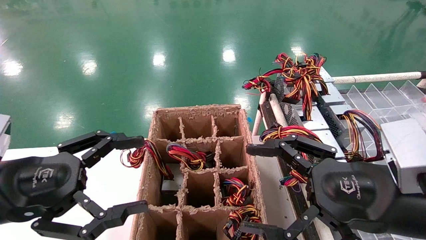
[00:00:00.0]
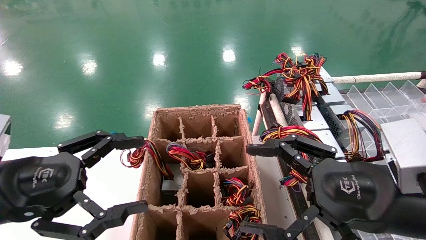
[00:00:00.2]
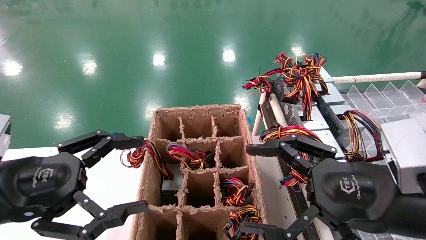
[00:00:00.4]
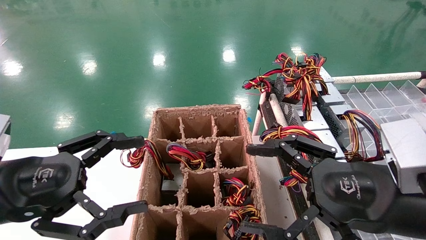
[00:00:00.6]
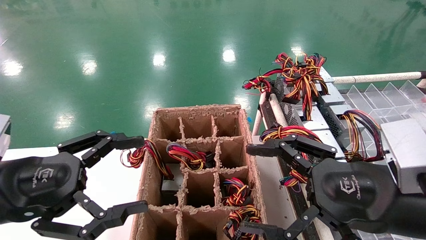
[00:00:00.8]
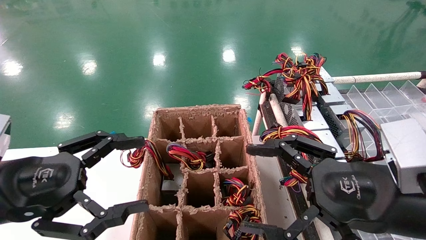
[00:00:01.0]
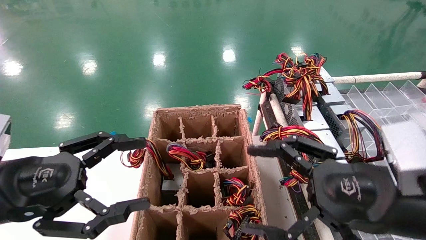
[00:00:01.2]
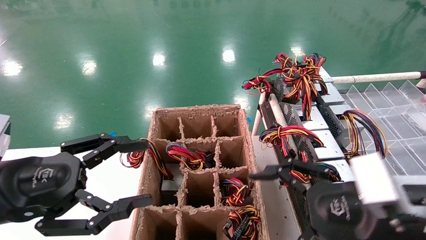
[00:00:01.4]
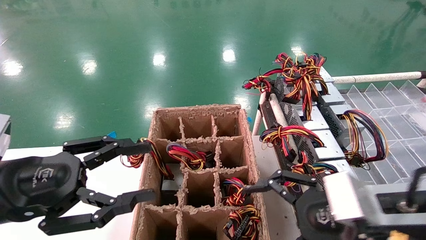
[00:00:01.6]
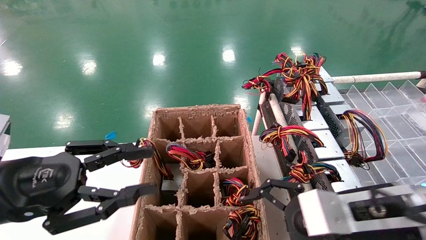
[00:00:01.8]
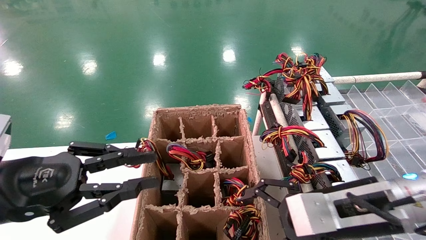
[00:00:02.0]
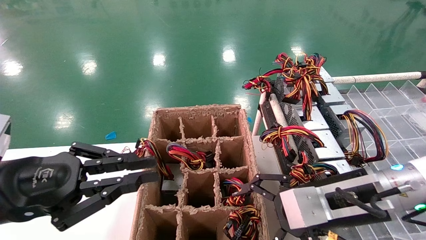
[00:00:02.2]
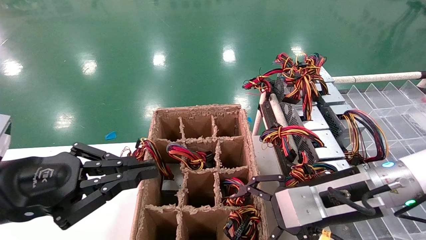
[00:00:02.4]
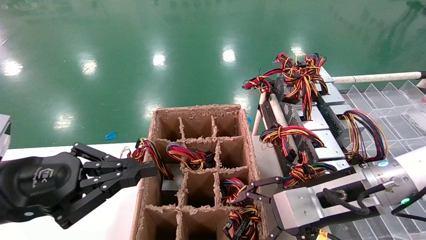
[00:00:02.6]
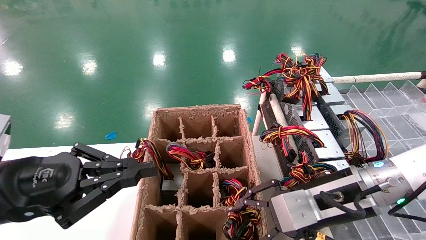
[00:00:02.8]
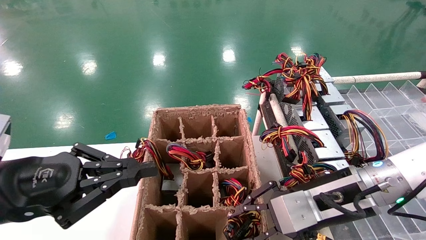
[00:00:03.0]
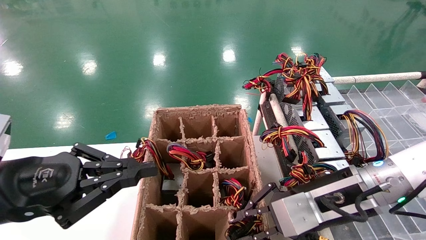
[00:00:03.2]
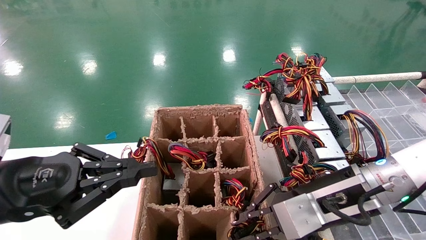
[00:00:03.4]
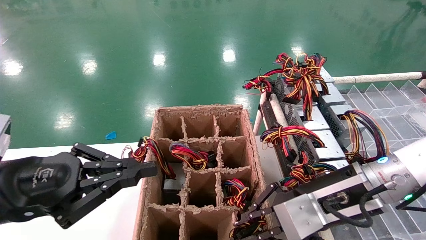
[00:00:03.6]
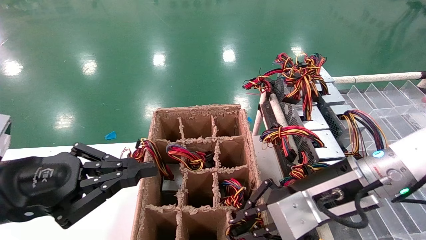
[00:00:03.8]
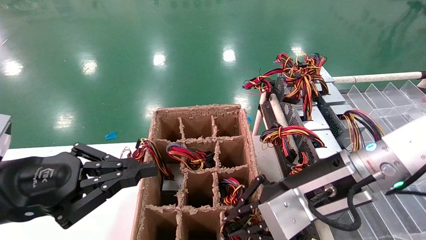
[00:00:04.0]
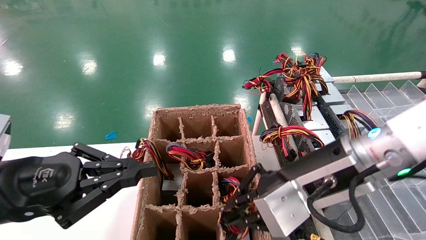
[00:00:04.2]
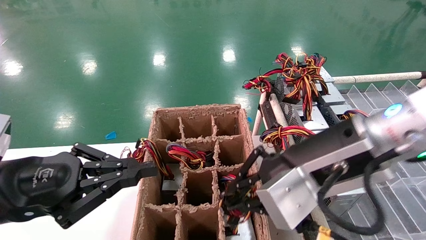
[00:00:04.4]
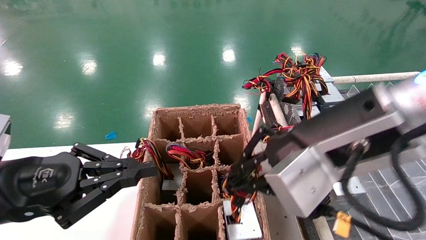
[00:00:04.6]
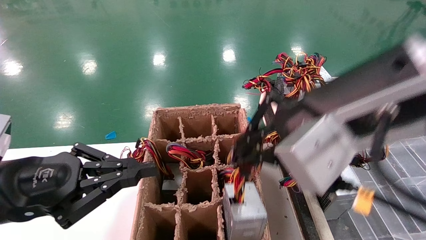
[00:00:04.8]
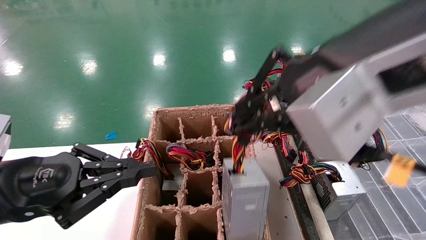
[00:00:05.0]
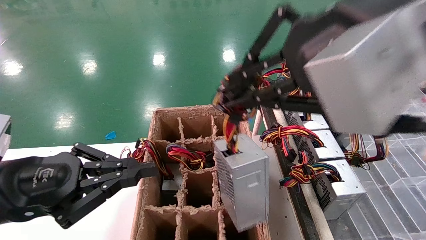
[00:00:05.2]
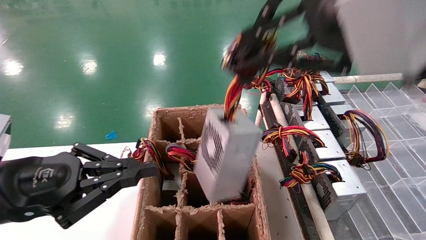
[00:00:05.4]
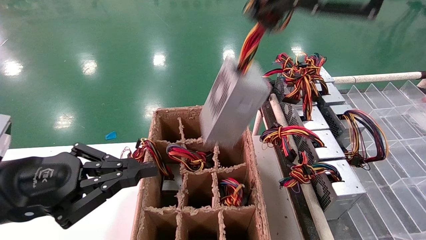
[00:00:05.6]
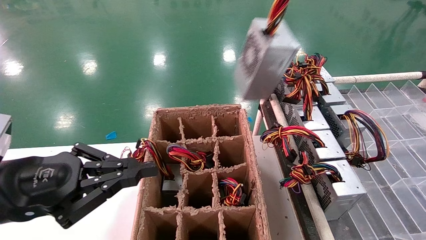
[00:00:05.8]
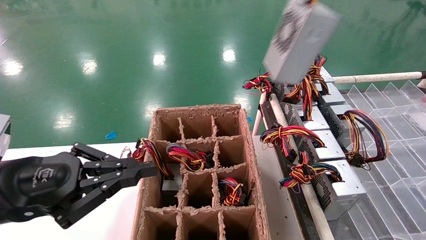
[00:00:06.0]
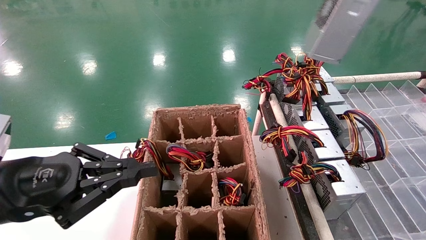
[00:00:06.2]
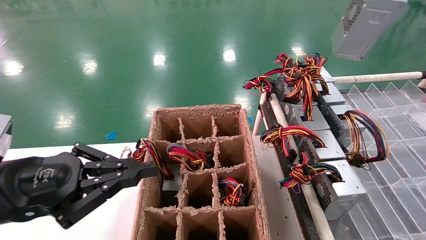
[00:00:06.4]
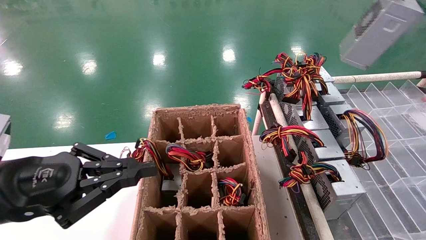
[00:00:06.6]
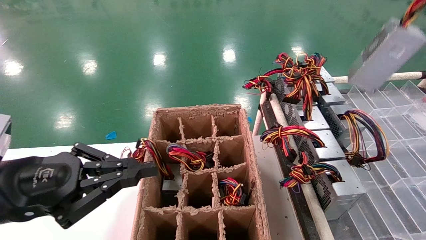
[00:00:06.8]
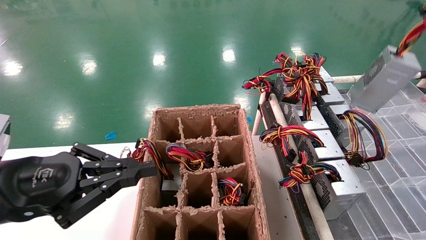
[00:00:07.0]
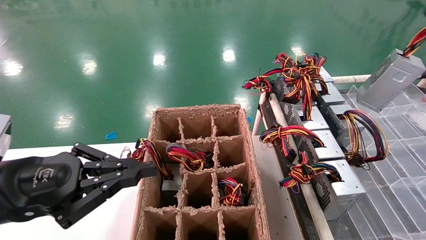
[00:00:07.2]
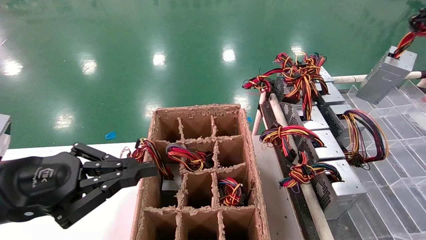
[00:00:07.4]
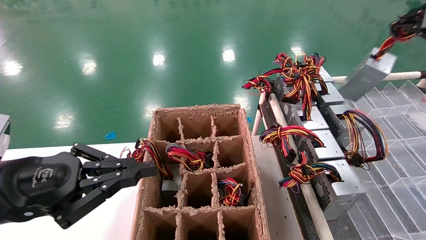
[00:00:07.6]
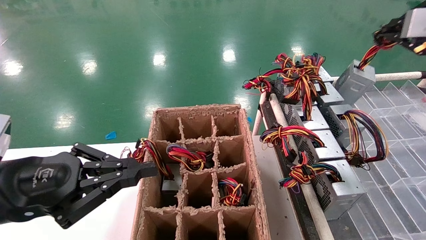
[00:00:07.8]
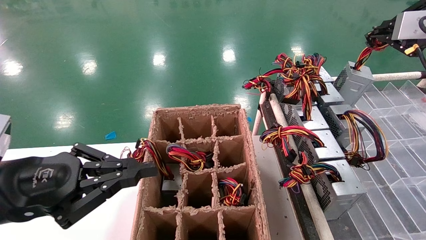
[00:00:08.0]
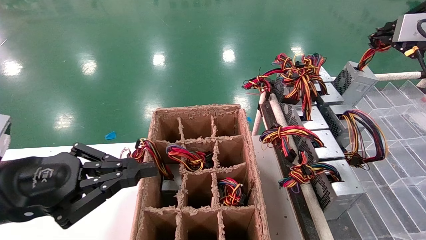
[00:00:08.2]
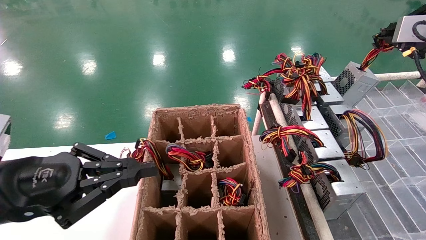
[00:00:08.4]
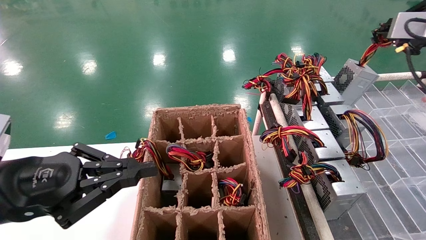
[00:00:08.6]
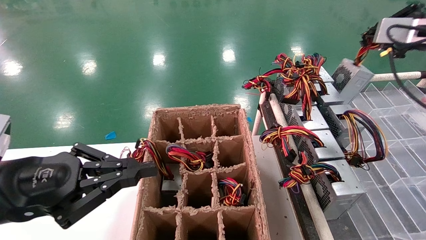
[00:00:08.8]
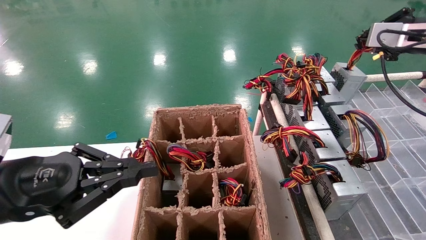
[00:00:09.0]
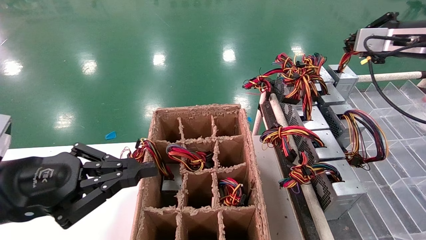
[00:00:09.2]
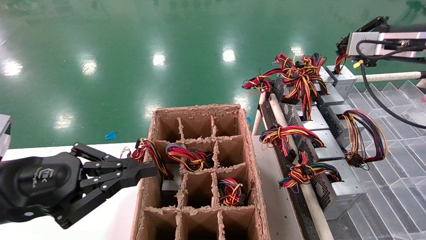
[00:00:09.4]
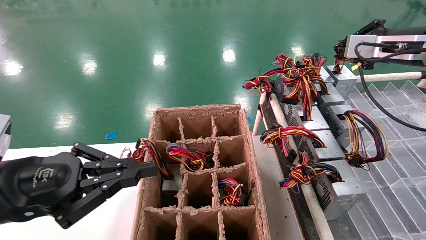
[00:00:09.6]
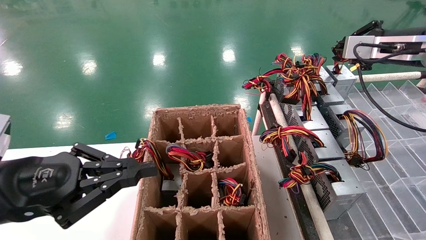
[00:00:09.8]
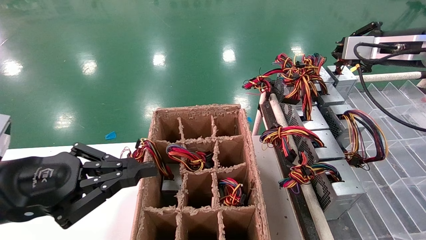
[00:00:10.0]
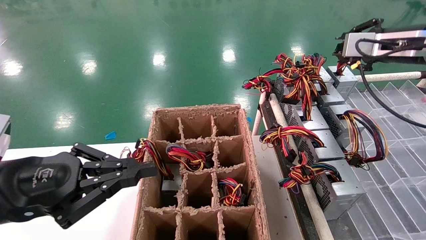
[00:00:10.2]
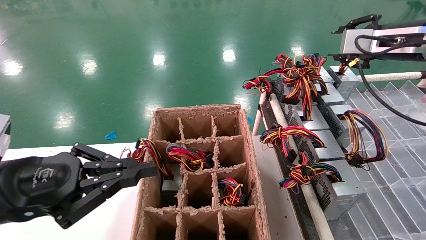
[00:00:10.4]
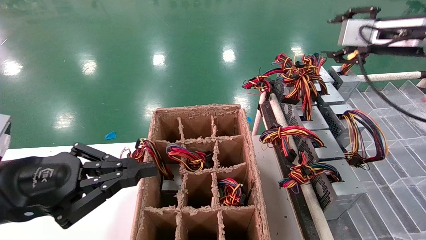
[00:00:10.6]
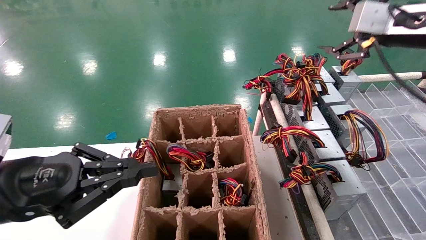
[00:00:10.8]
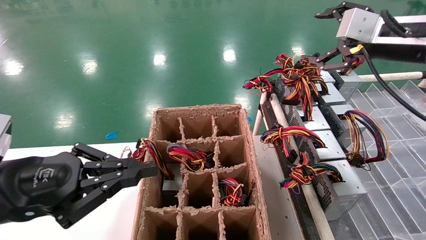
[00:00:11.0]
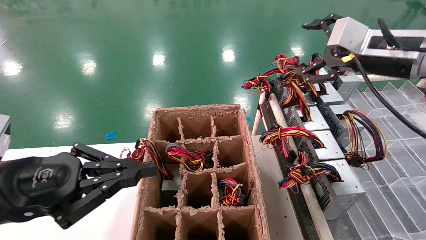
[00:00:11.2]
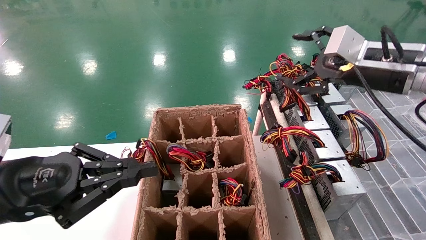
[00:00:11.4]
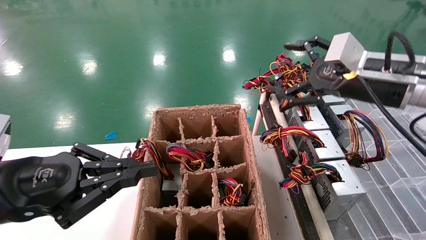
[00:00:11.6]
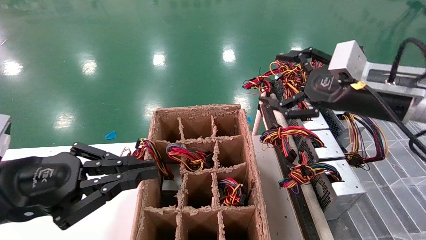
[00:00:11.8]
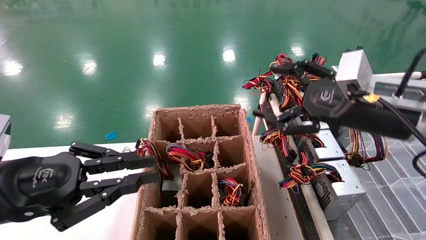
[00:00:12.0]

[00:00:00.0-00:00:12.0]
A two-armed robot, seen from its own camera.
Step, 00:00:01.8 to 00:00:03.6: Grab the main unit power supply from the containment box.
Step, 00:00:03.8 to 00:00:10.6: Place the main unit power supply in the designated area.
00:00:01.6 to 00:00:03.0: The right gripper goes approximately 5 cm forward, and closes. Meanwhile the left gripper closes its fingers.
00:00:03.0 to 00:00:04.4: The right gripper moves upward, about 10 cm.
00:00:04.4 to 00:00:06.0: The right gripper goes roughly 30 cm upward and to the right.
00:00:06.0 to 00:00:07.6: The right gripper moves to the right, forward and downward, roughly 25 cm.
00:00:07.6 to 00:00:09.0: The right gripper shifts about 10 cm forward.
00:00:09.0 to 00:00:10.4: The grippers move only a little.
00:00:10.4 to 00:00:12.0: The right gripper is displaced downward, to the left and backward by approximately 20 cm, and opens its fingers.

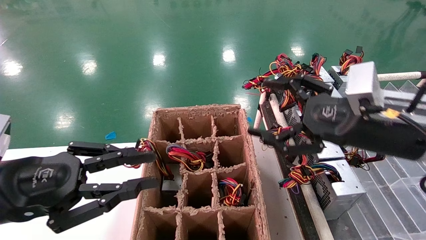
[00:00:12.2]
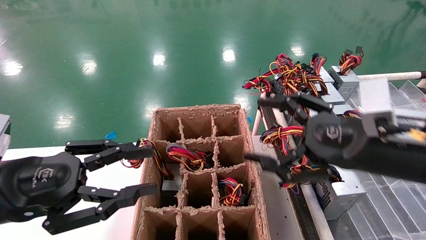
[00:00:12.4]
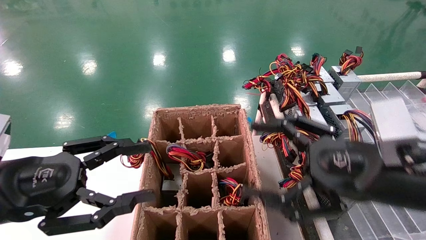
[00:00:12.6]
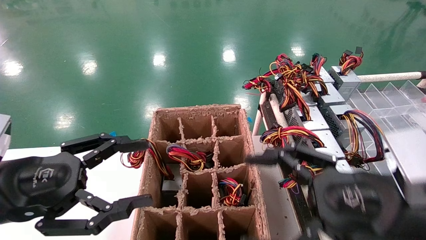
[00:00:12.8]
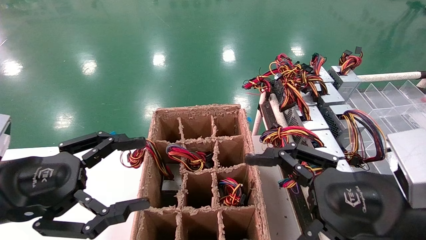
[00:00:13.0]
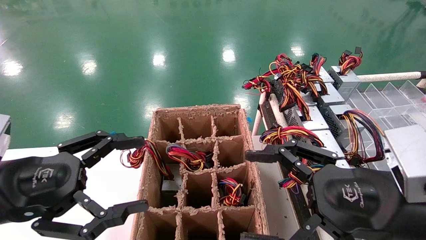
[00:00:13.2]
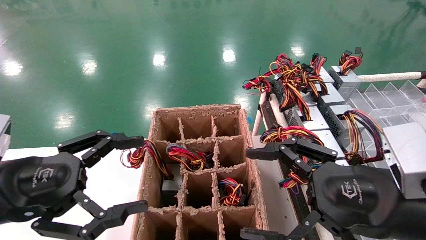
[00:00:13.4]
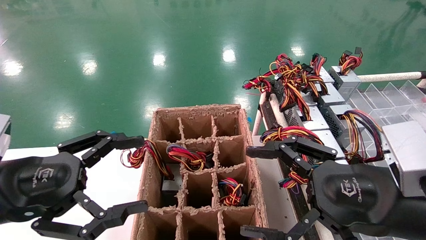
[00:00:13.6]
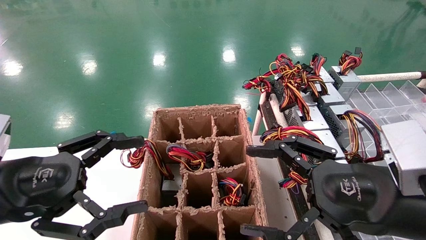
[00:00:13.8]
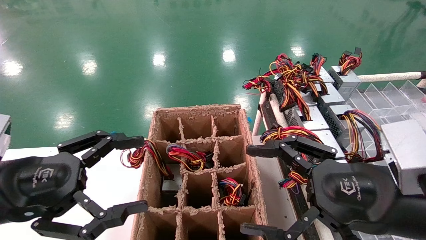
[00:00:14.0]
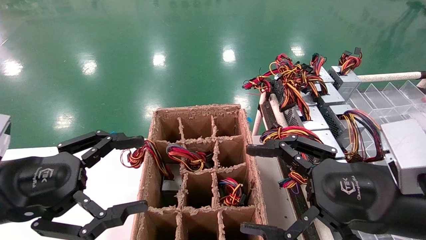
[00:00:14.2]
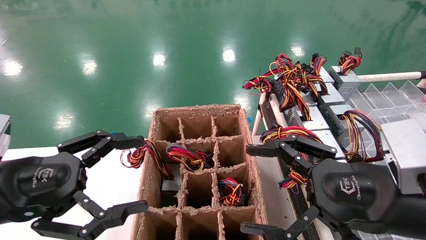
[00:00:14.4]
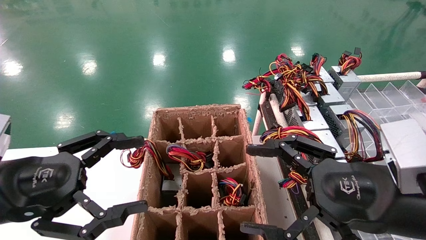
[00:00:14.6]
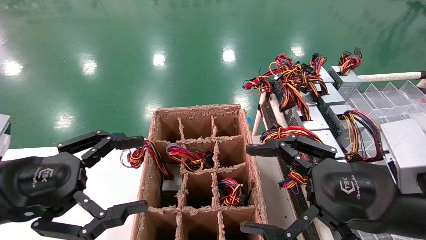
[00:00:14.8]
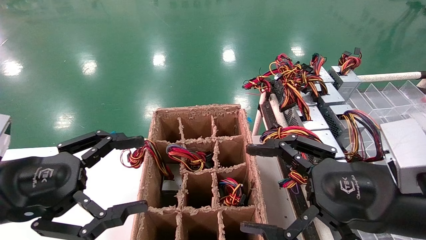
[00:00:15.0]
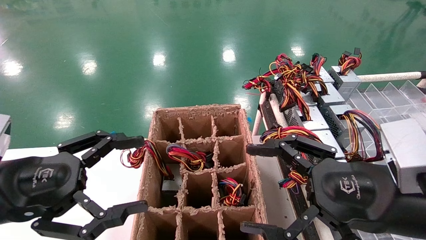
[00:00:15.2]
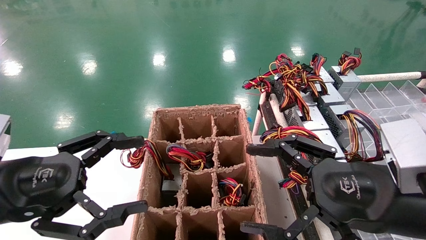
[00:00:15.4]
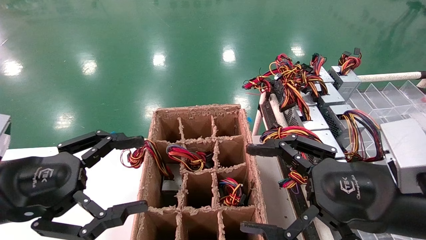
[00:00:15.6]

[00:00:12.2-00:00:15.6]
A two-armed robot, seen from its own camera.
00:00:12.2 to 00:00:13.8: The right gripper is displaced backward by roughly 10 cm. Meanwhile the left gripper opens up.
00:00:13.8 to 00:00:15.6: Both grippers stay put.
